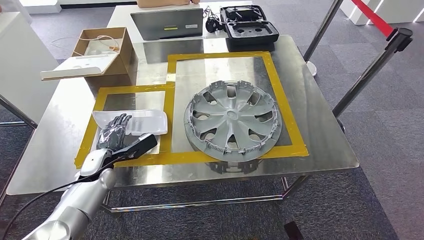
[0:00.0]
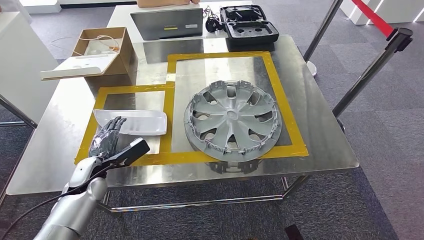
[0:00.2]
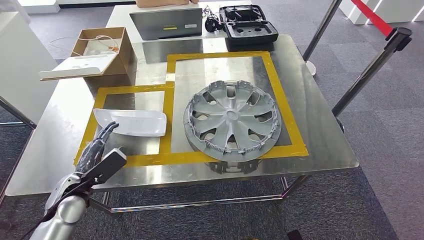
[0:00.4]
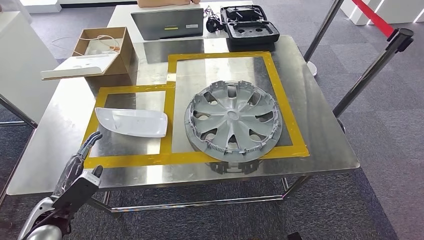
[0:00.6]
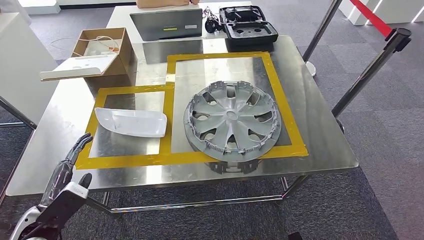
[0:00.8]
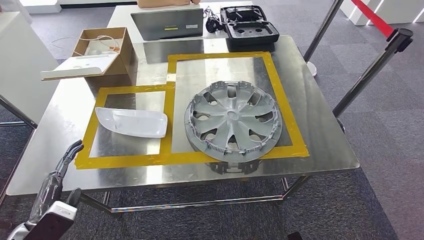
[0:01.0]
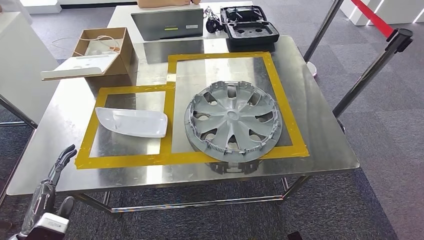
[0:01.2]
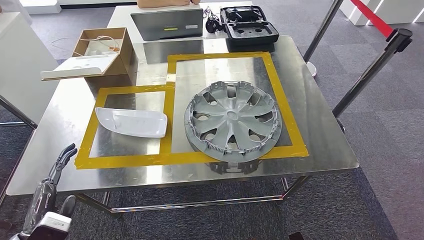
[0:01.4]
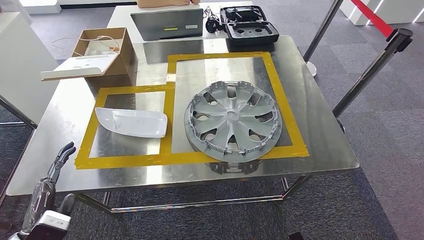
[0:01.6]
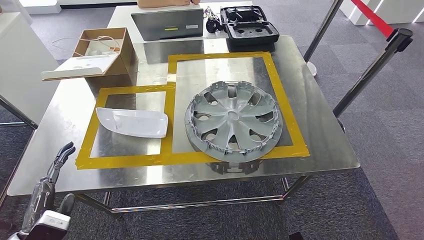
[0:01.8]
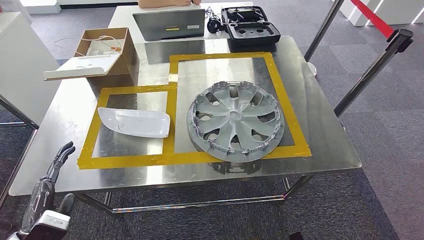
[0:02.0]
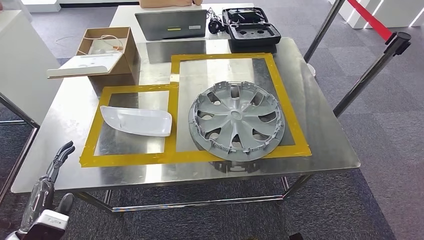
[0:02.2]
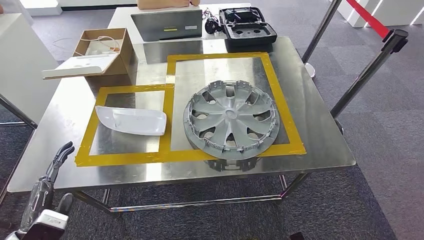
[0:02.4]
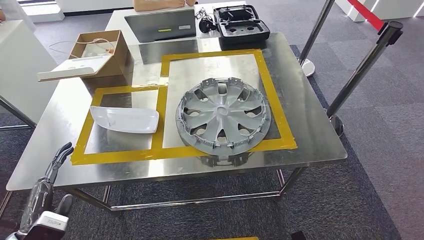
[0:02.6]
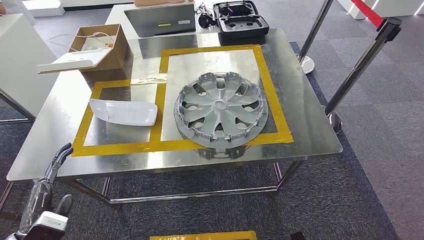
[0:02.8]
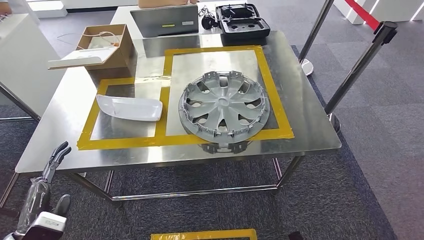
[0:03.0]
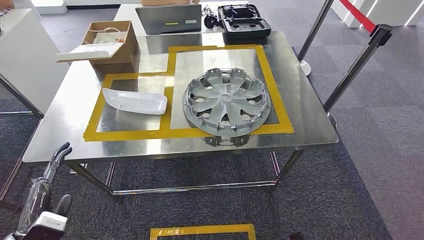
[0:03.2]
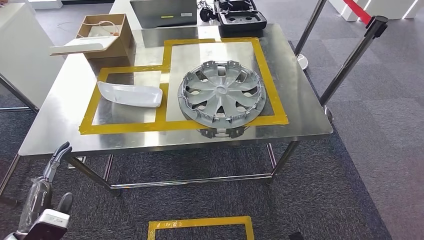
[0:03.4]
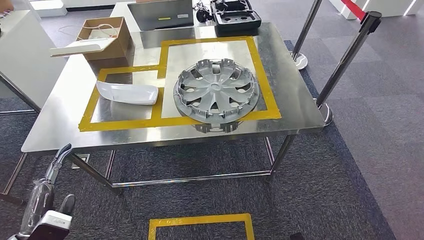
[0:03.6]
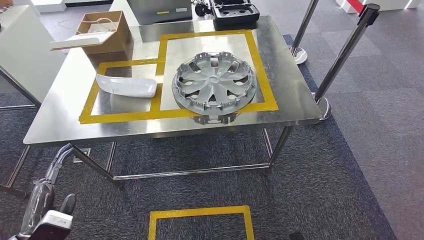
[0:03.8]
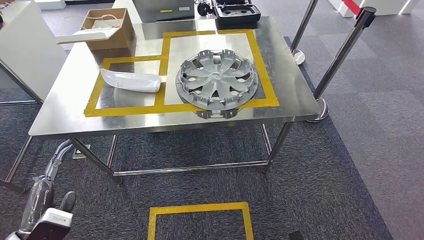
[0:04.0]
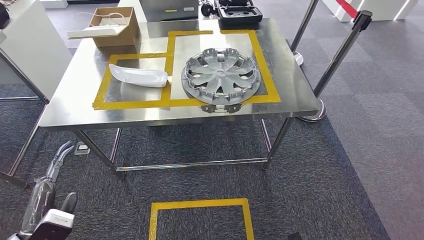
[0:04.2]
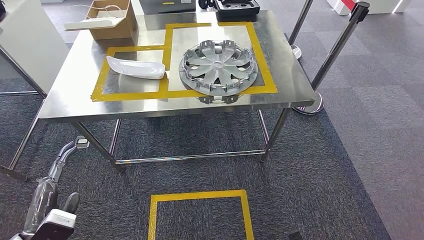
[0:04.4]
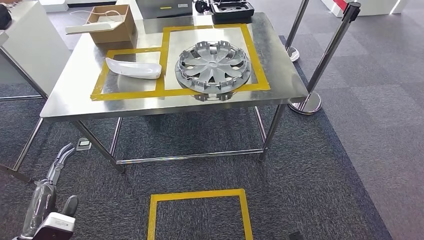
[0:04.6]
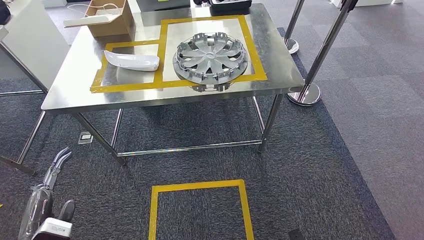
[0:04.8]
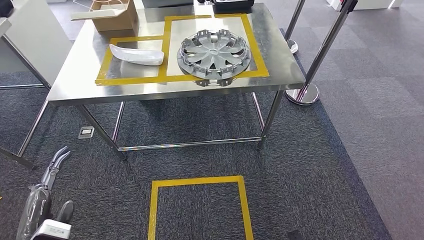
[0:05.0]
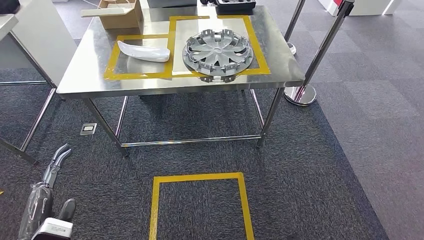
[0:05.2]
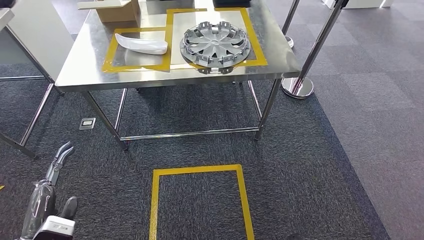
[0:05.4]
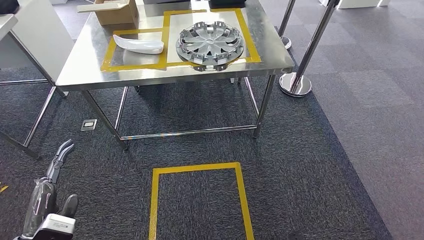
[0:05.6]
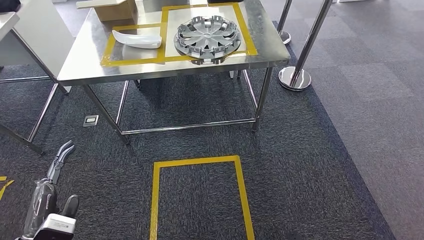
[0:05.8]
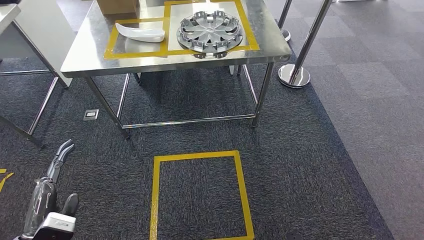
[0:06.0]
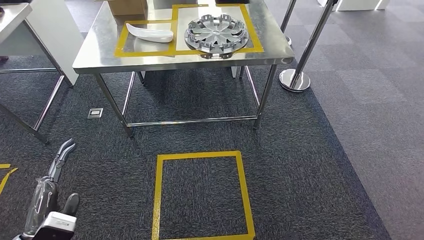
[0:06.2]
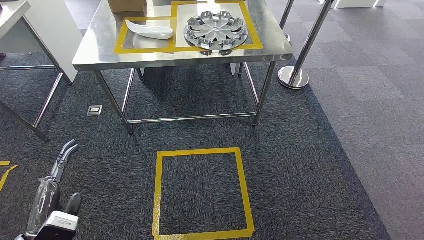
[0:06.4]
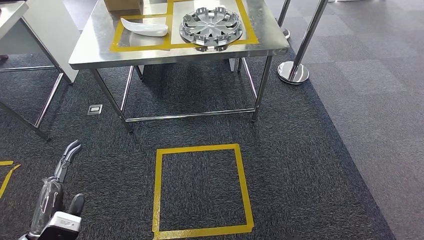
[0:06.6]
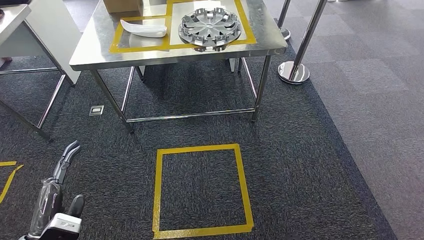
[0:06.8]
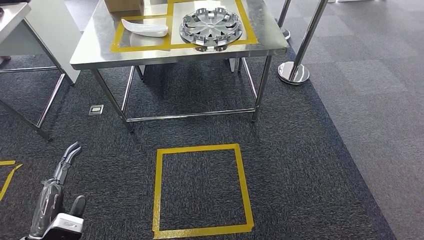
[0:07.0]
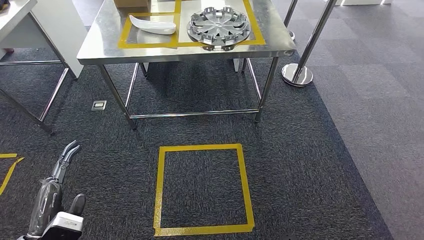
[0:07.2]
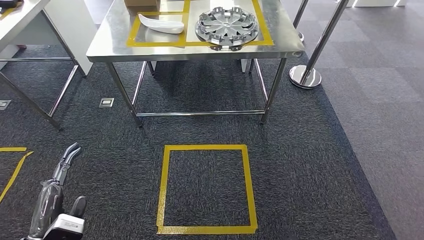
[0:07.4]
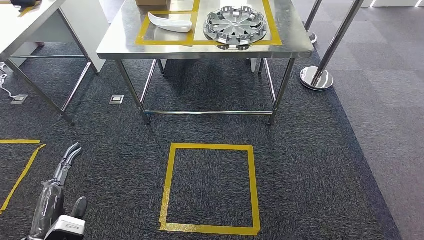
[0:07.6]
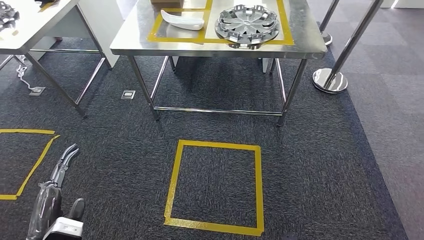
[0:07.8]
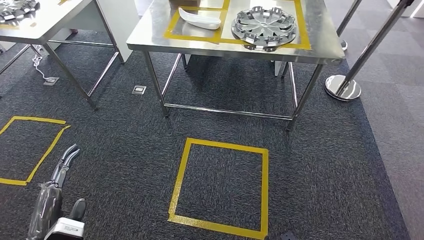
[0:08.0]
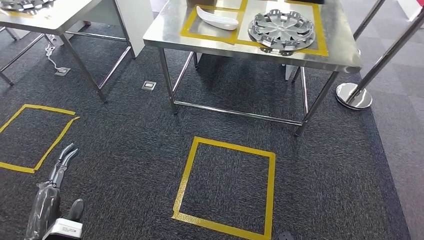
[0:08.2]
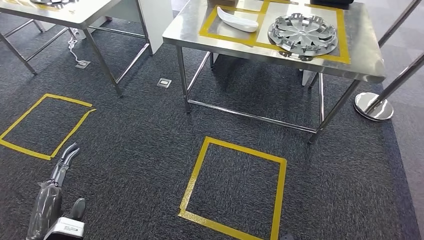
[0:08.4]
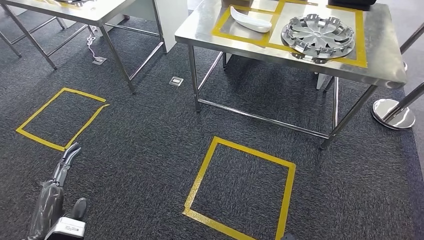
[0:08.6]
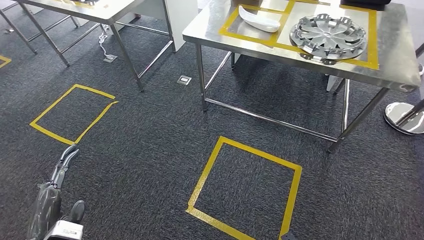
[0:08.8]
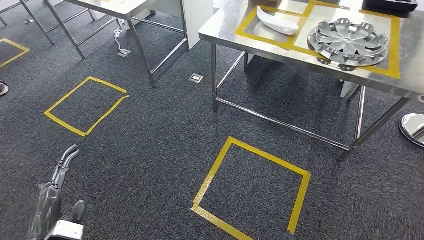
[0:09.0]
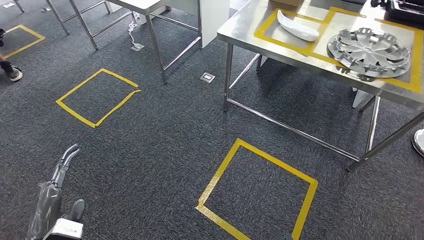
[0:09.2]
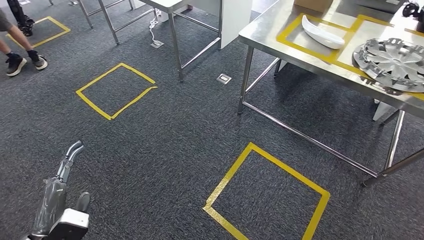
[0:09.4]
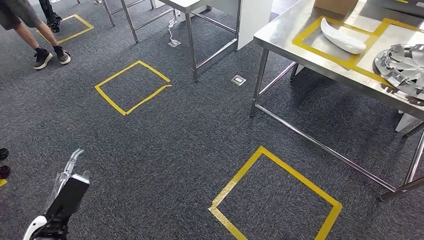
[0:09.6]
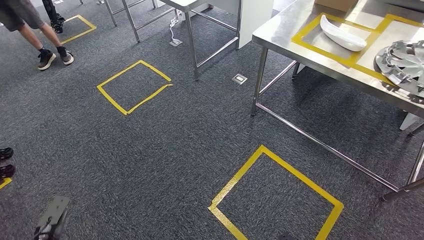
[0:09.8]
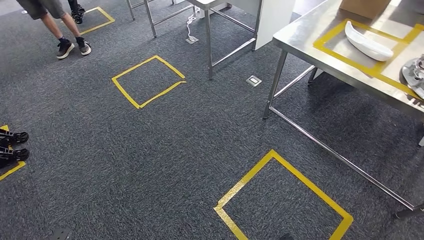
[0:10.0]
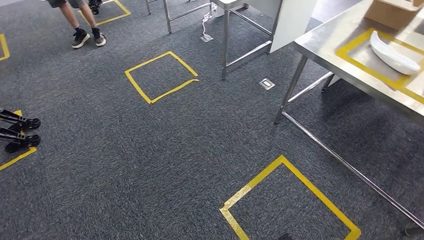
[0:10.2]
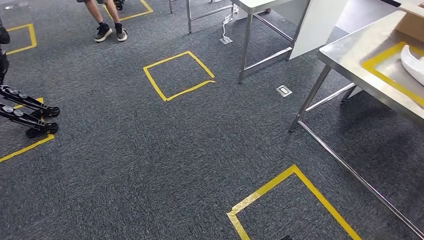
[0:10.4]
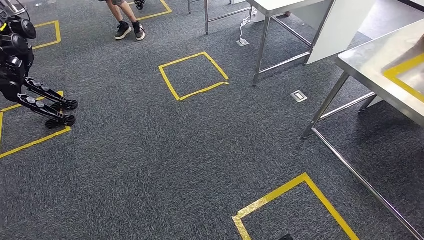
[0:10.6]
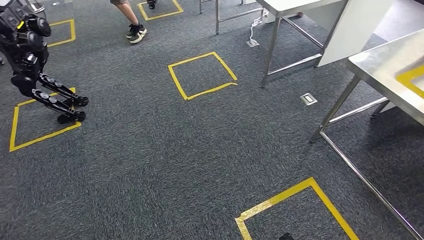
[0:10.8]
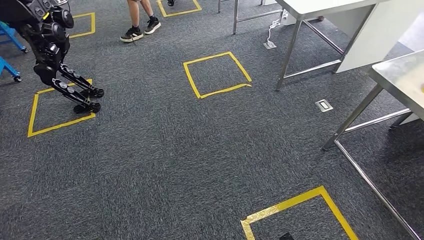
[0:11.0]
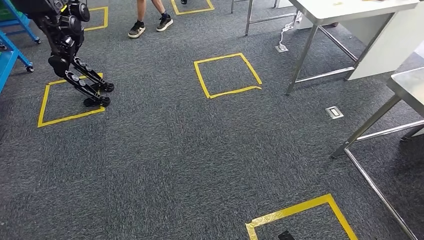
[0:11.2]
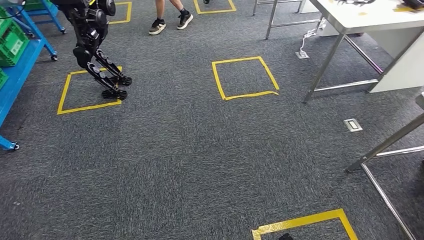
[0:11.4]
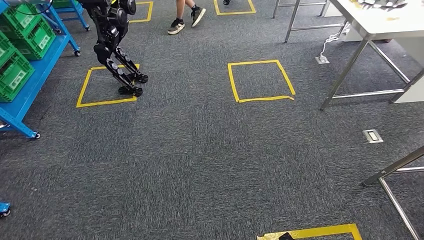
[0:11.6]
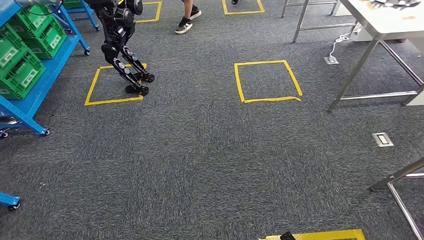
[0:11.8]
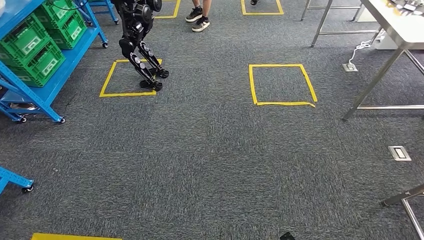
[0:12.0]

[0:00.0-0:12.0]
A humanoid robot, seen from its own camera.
0:00.0 to 0:01.6: The left hand shifts about 20 cm backward.

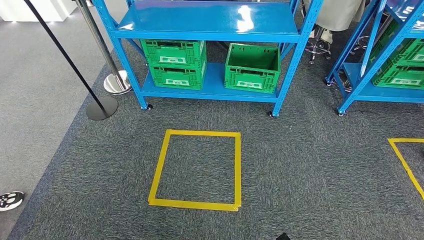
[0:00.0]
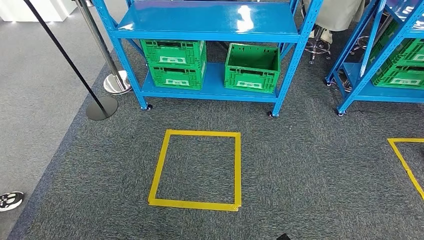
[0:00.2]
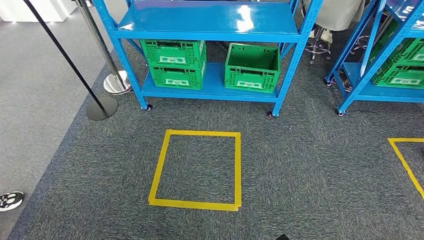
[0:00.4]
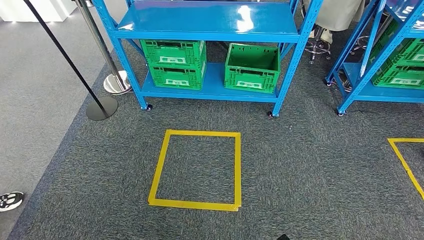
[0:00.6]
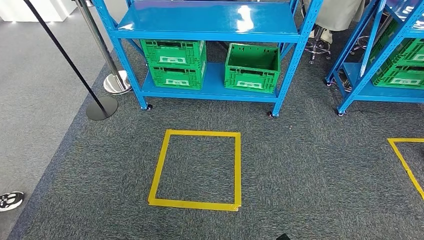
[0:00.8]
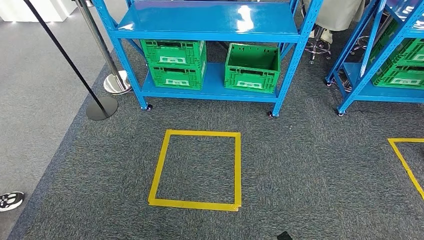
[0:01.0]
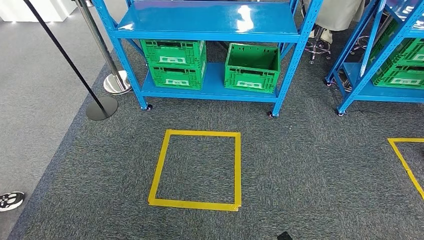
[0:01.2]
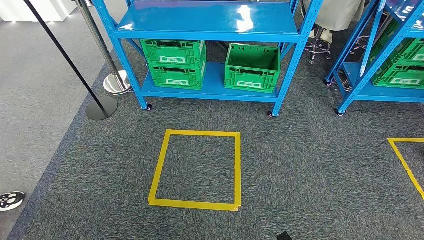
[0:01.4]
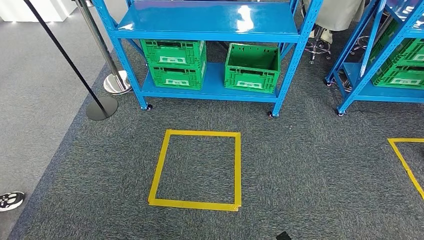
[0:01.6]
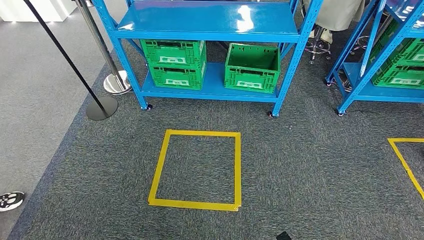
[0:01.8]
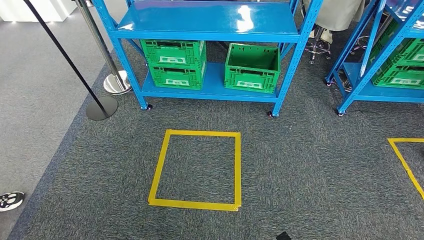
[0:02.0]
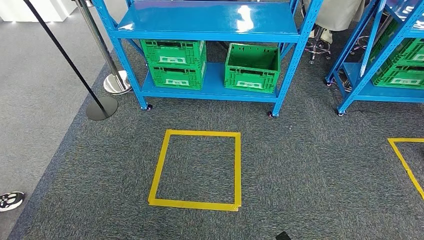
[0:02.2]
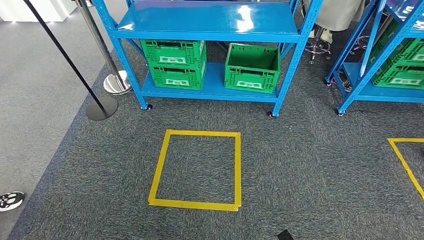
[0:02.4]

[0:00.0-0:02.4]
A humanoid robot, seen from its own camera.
0:01.2 to 0:02.4: Both hands stay put.

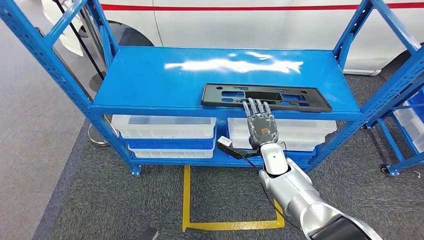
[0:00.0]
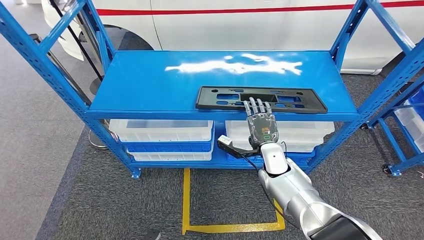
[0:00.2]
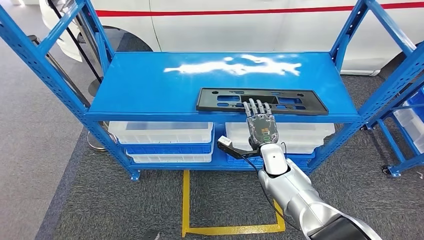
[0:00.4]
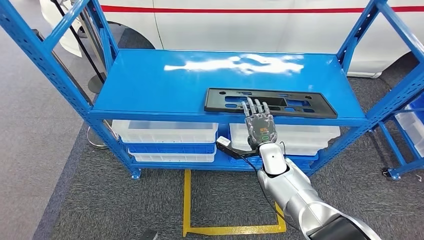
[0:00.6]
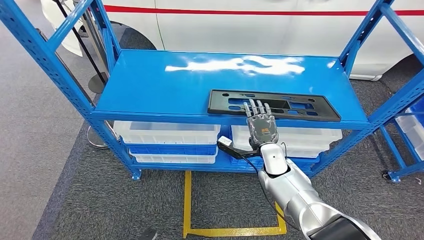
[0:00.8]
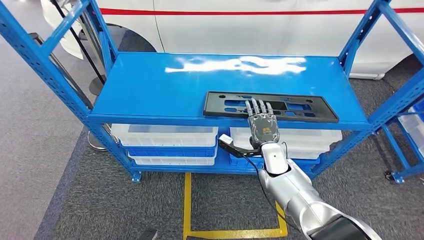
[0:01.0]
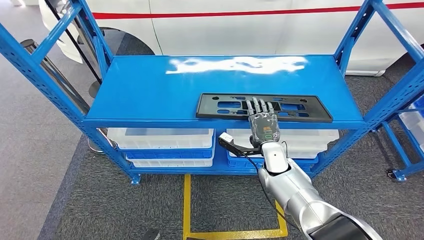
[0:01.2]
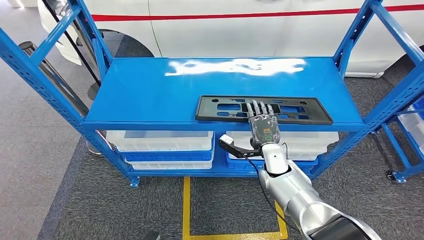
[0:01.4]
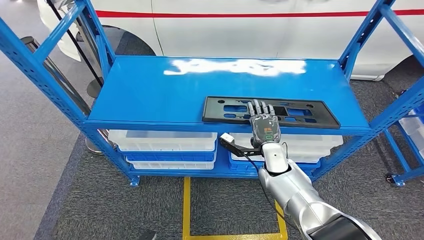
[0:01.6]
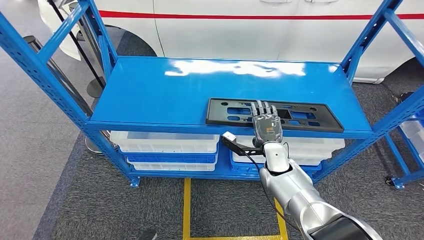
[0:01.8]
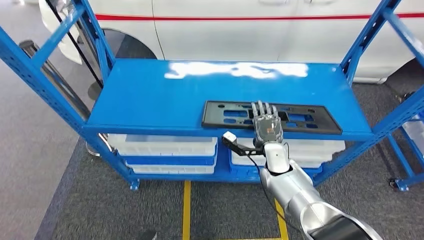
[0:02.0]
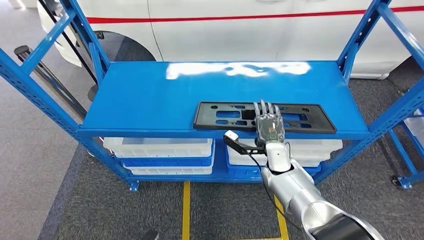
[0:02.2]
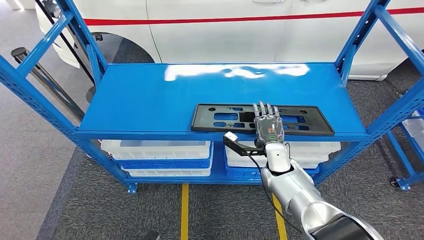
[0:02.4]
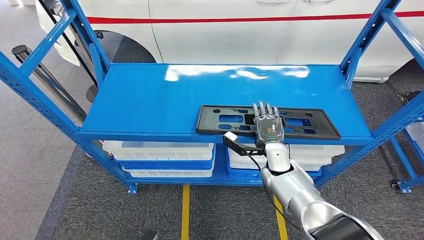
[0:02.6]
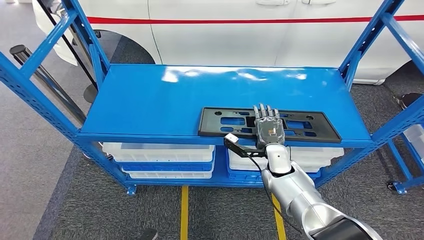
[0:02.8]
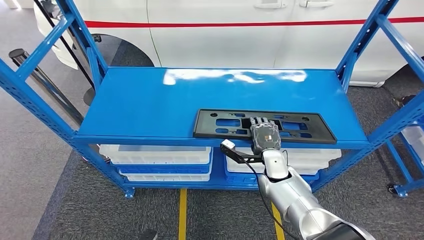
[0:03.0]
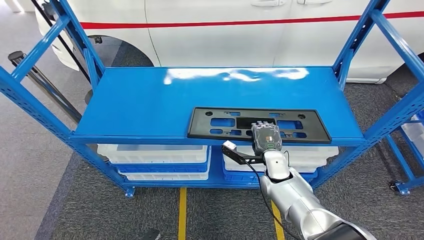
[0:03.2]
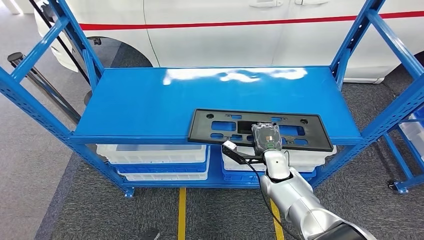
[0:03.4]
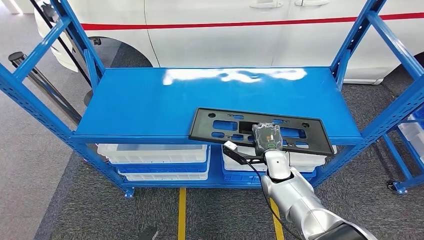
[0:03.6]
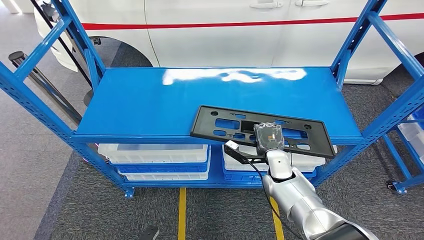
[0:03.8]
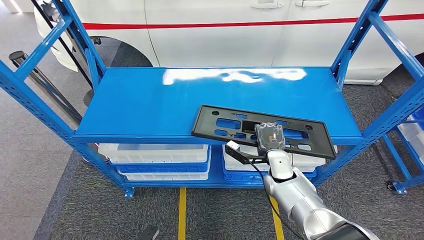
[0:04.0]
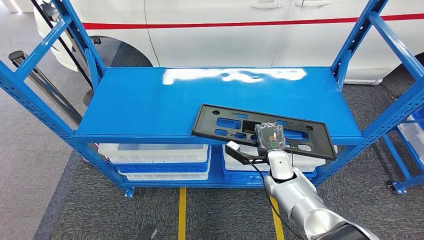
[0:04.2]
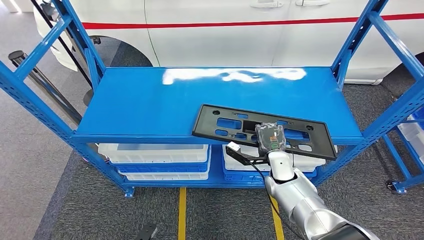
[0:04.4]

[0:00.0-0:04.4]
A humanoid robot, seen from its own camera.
0:03.0 to 0:04.4: There are only small adjustments of the hands.
